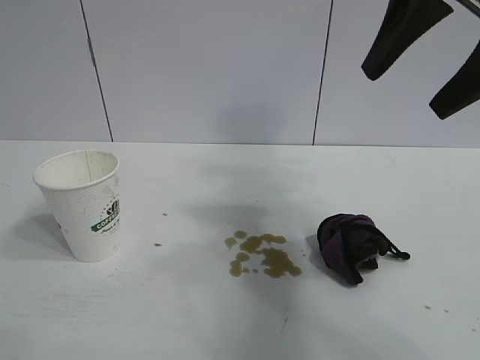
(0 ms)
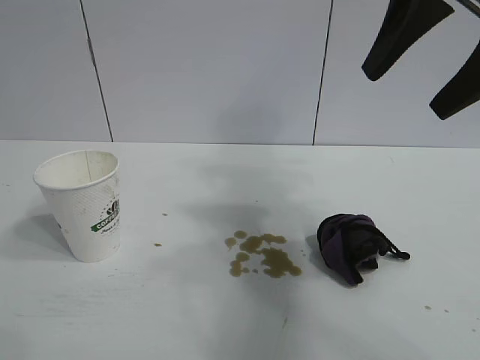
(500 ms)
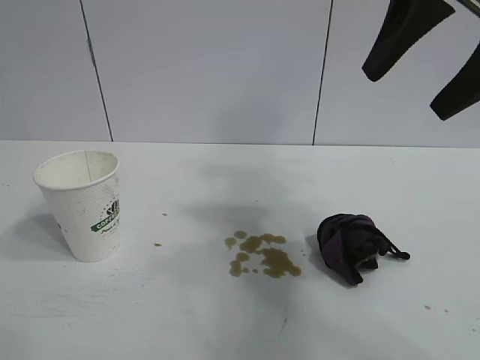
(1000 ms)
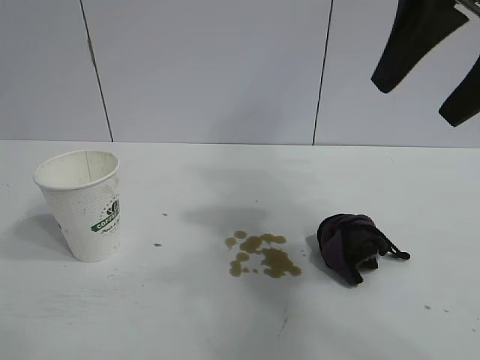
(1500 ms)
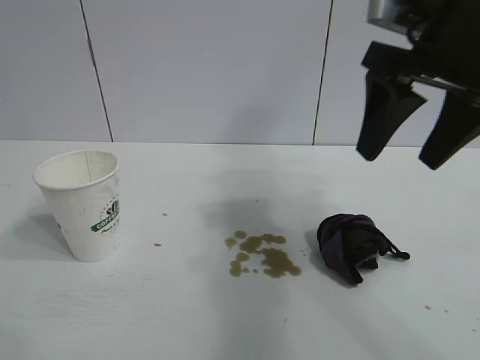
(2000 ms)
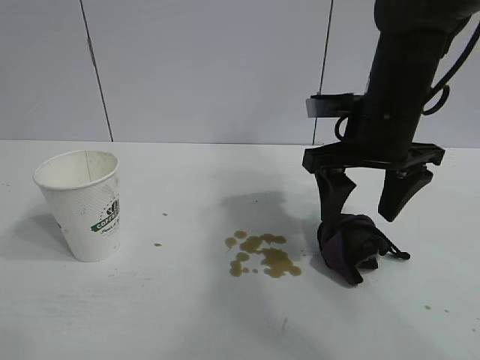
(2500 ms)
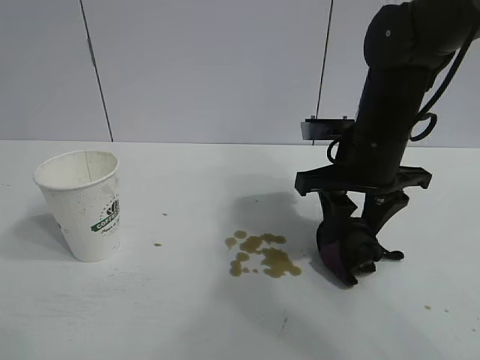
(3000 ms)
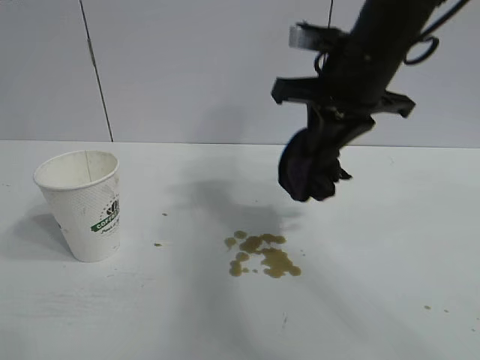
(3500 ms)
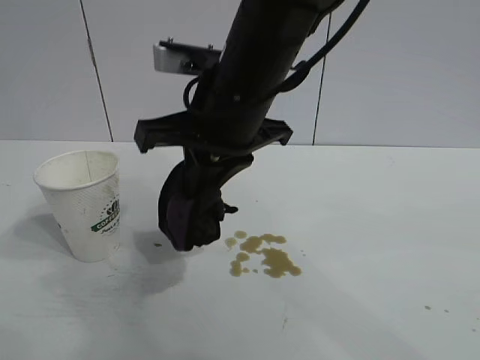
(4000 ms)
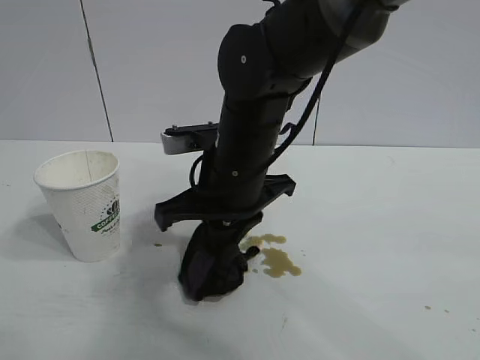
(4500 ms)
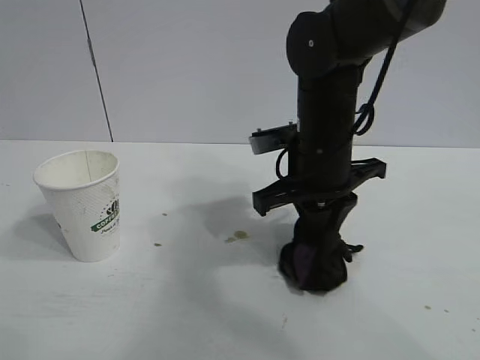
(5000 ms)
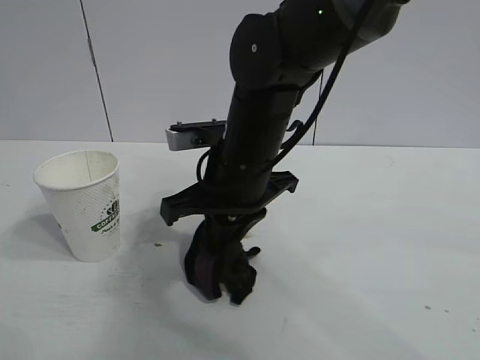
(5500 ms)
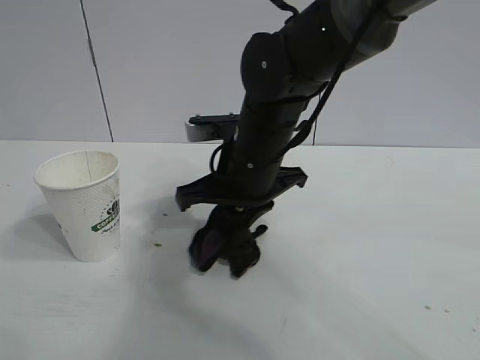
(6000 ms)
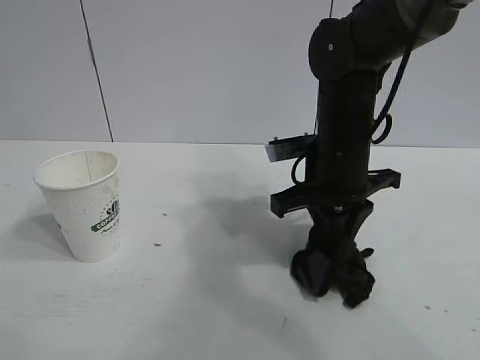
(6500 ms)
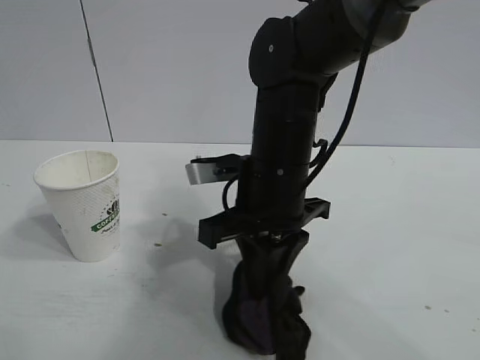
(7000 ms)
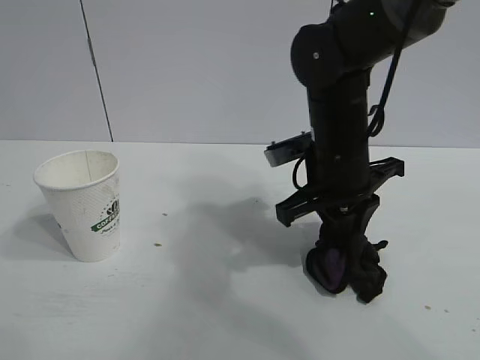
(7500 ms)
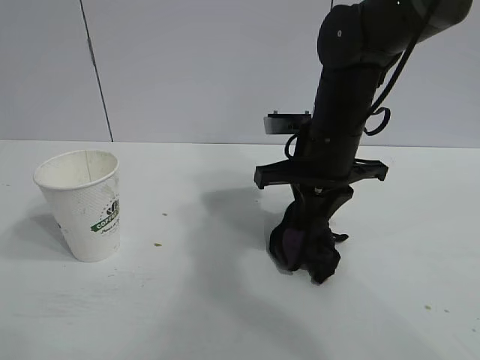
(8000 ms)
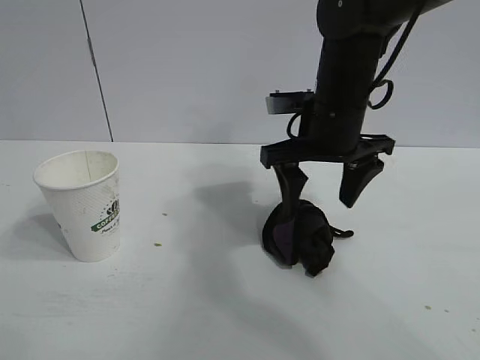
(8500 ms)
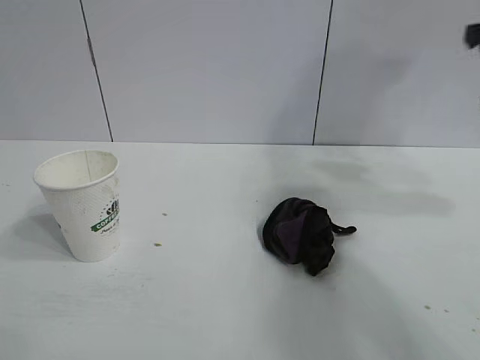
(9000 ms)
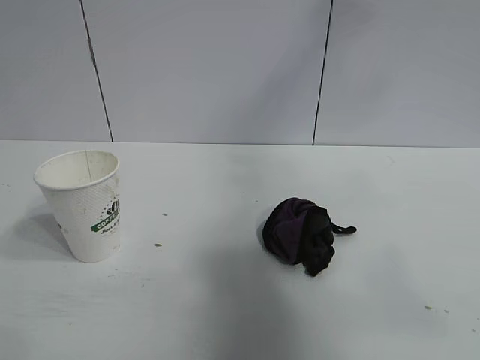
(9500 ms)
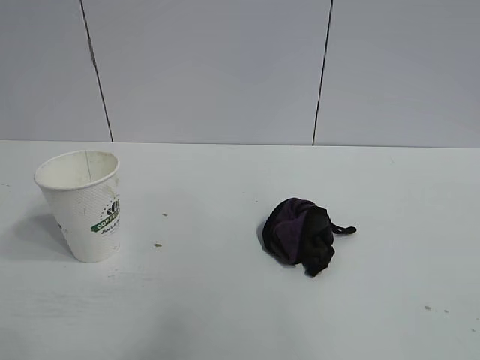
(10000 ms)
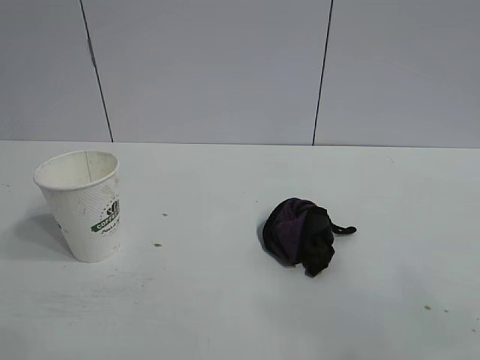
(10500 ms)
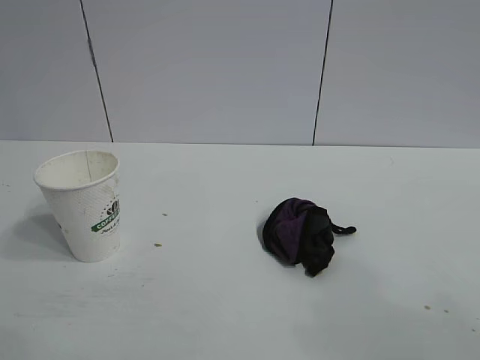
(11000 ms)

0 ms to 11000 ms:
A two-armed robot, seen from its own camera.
Task of the whole recording: the left gripper pick up the fallen cup and place it upright, the right gripper grasp the black rag and wipe the stain on the table, the right gripper put the black rag back in its original position.
Step, 0 ms to 3000 ms: Grasp the rag with right gripper.
Step, 3500 ms to 7500 ms: Wipe the stains off the table with the rag with right gripper.
